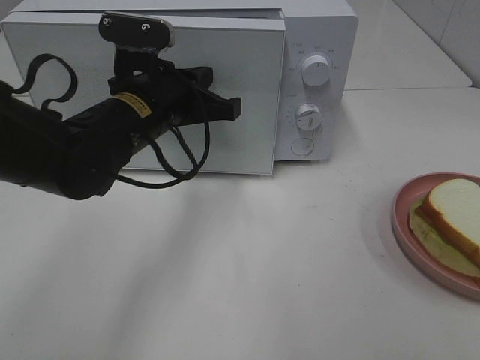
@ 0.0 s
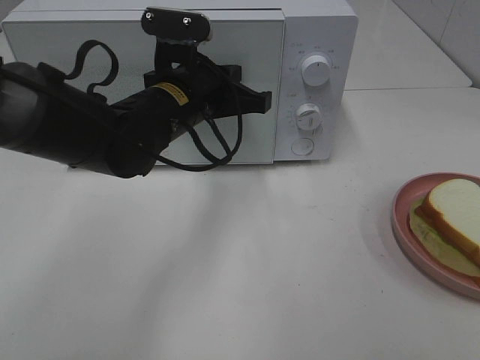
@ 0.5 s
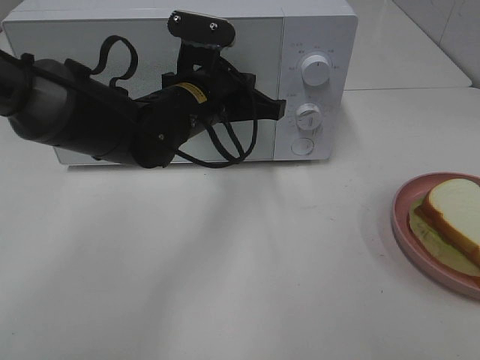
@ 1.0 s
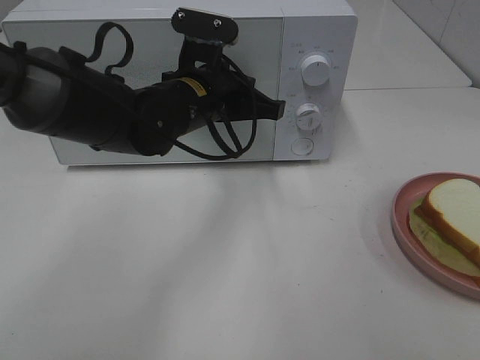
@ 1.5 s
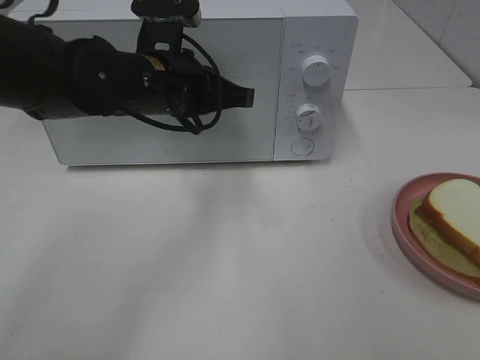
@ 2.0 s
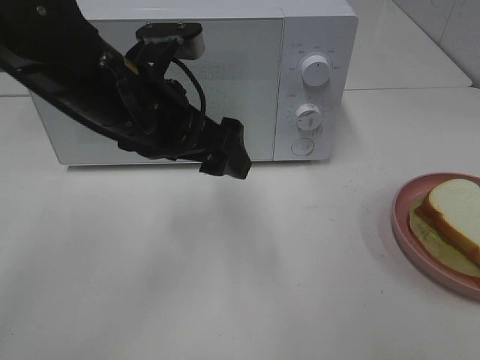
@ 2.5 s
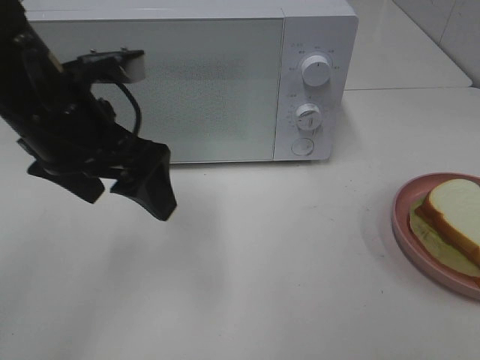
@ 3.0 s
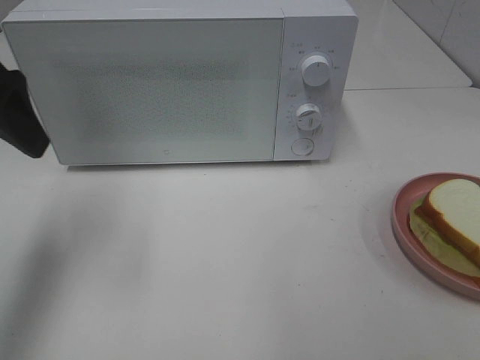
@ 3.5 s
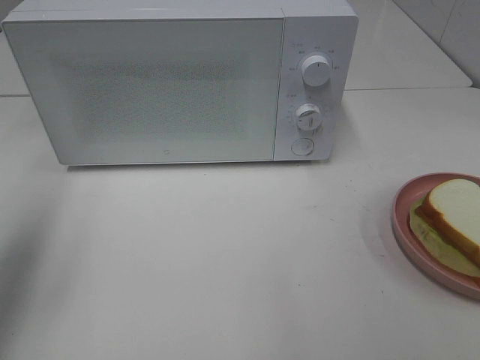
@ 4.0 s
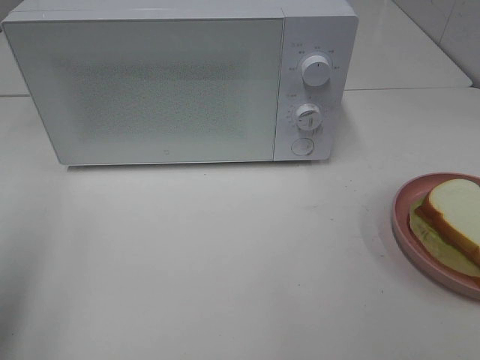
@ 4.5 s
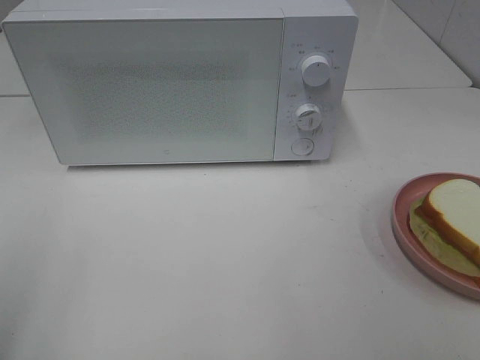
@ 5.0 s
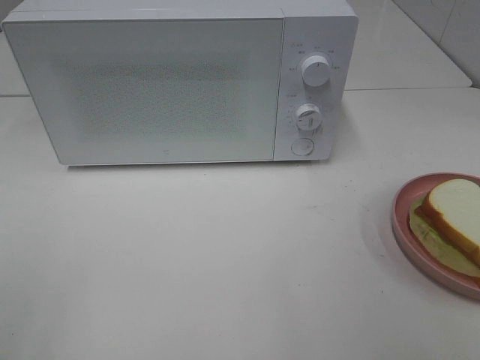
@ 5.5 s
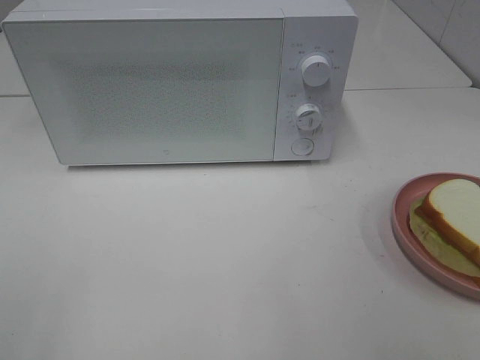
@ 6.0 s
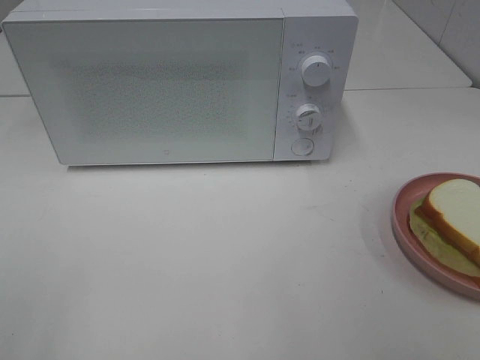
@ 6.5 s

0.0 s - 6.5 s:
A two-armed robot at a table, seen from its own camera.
Task of the whole recording: Heat Sandwich.
2.0 s - 4.5 s: The left gripper heads to the left, backward and upward, covering roughly 35 cm, and opens.
4.5 s - 6.5 s: The left gripper shifts about 15 cm backward.

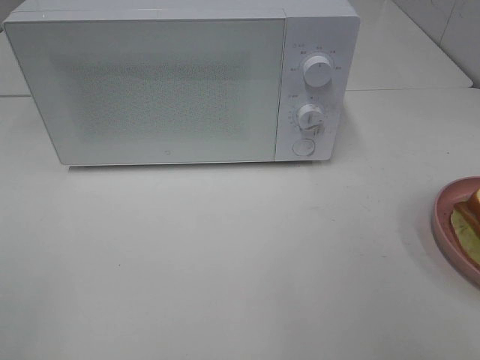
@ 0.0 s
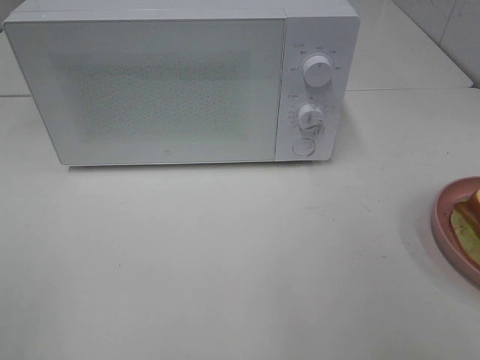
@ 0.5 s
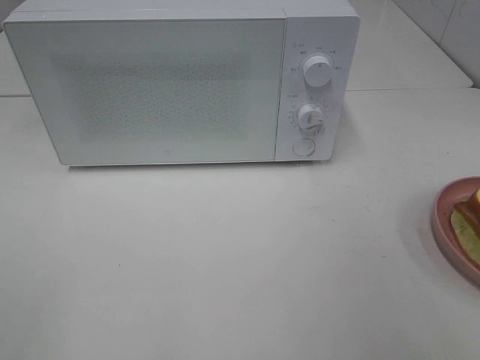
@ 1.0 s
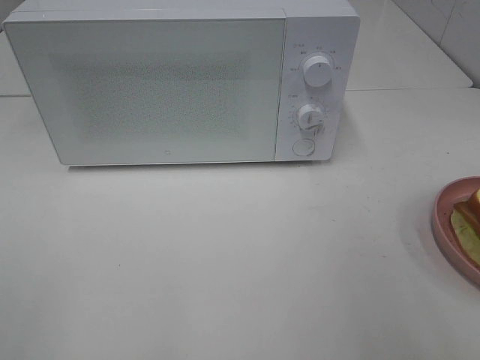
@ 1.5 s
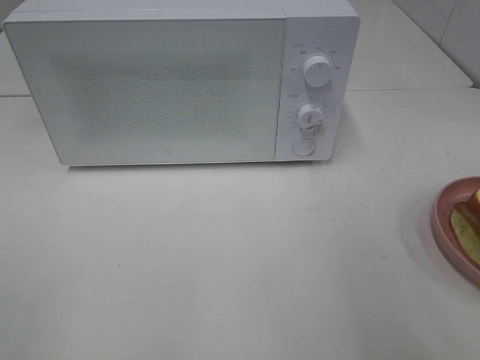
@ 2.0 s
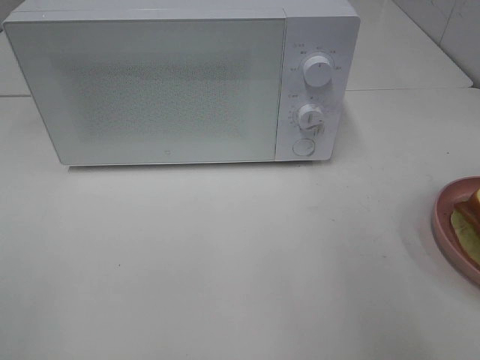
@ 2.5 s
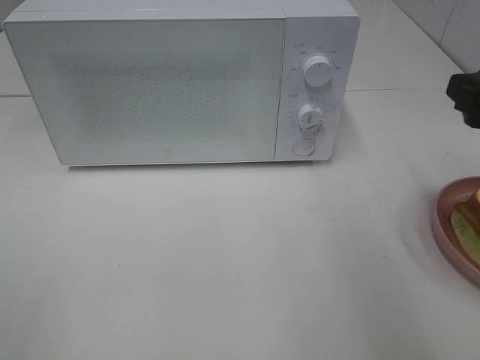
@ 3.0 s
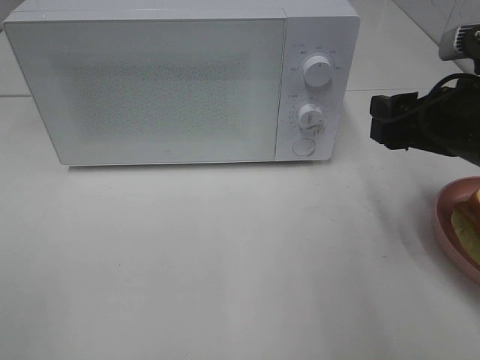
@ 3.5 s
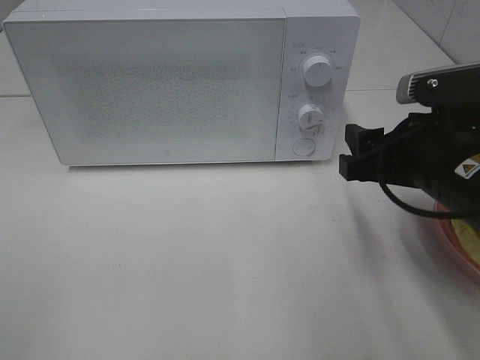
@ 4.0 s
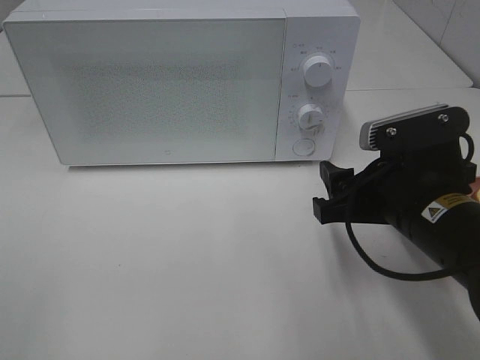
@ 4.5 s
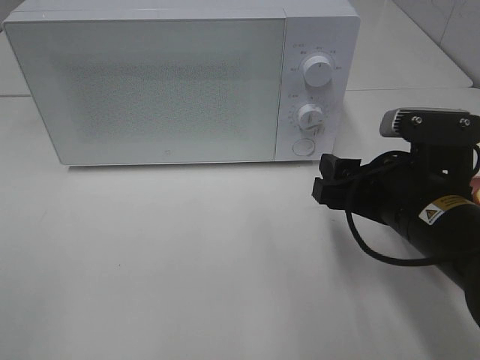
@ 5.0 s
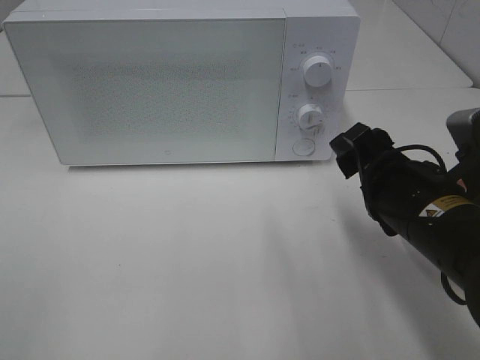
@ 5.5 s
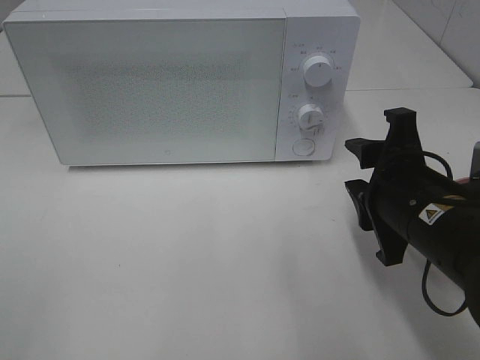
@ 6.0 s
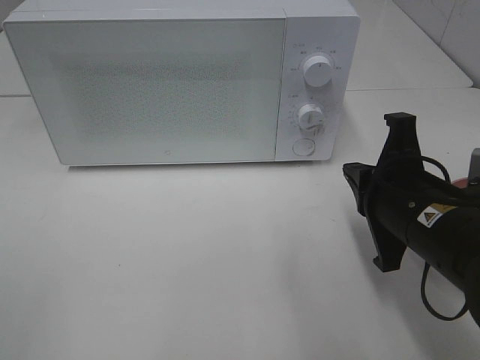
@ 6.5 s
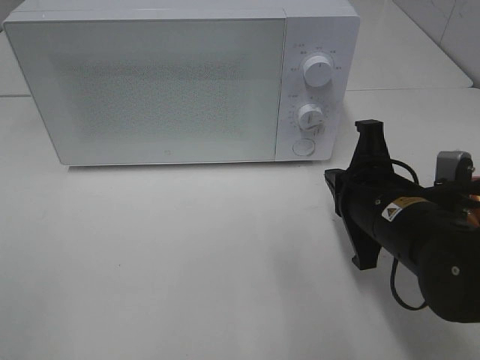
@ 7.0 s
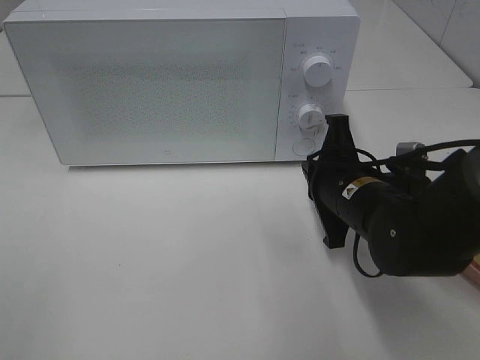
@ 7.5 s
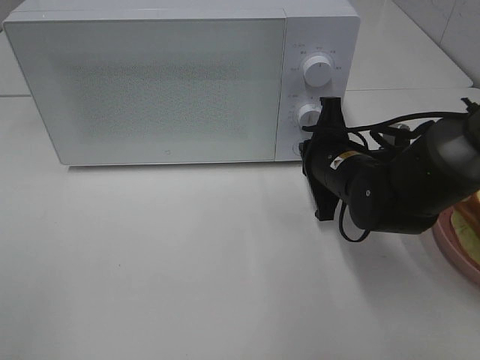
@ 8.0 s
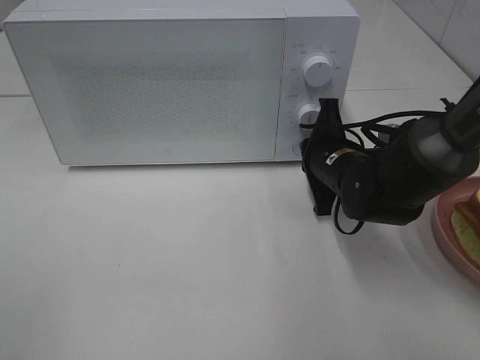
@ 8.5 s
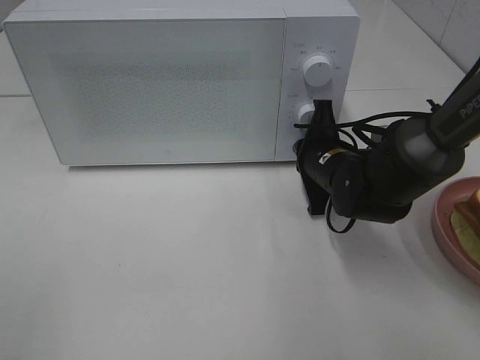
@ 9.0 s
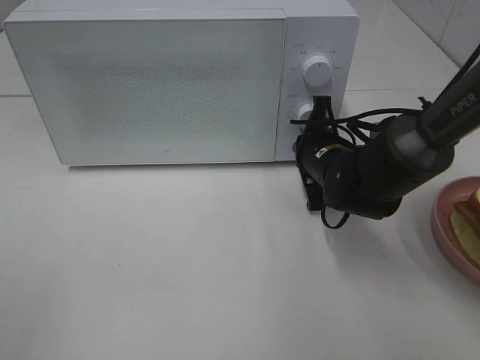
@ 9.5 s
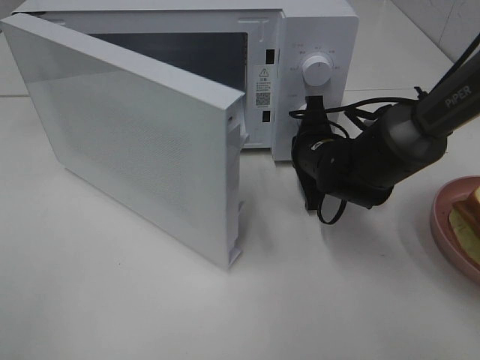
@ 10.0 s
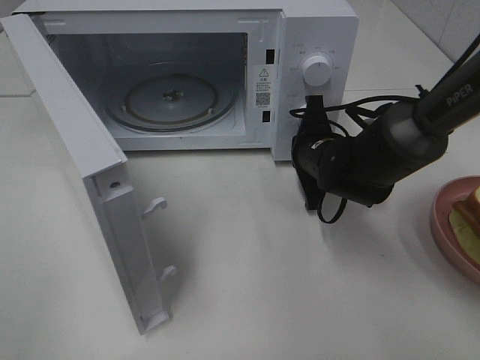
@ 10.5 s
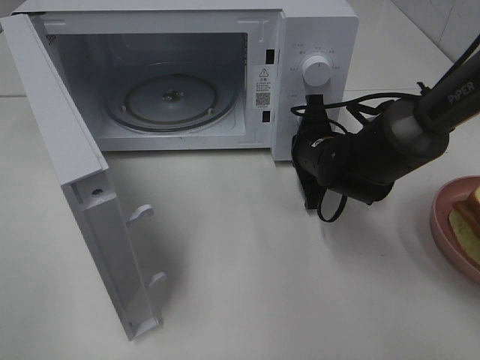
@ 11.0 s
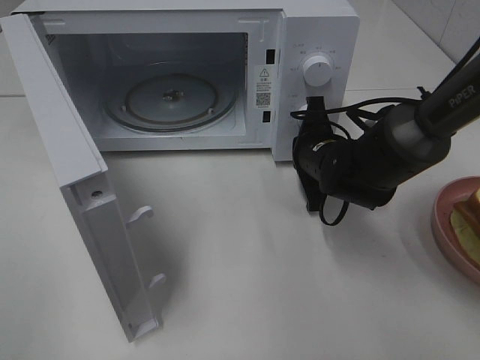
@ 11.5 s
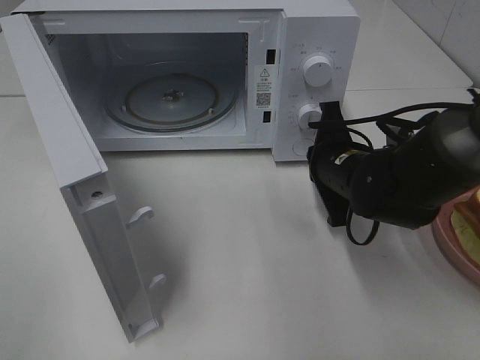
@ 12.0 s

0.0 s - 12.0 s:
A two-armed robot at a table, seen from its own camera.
Task of the whole recording: Heat Sandwich.
2.0 s - 4.0 s: The right gripper heads forward, downward and to the left, covering roughly 15 cm.
6.0 s - 8.0 s: The right gripper moves forward and downward, about 15 cm, and closes its fingers.
8.0 s - 10.0 s: The right gripper moves forward, approximately 5 cm.
10.0 s - 12.0 s: The right gripper heads backward, covering roughly 5 cm.

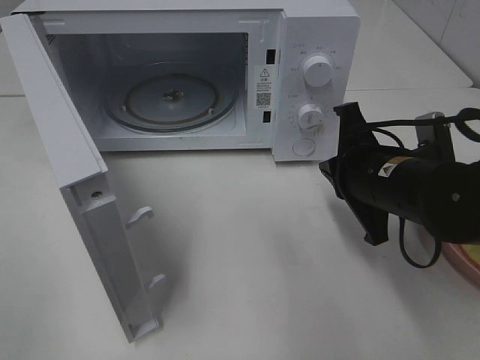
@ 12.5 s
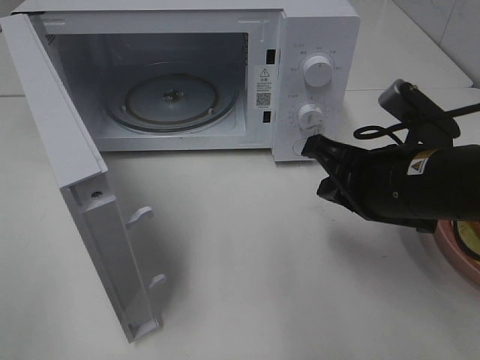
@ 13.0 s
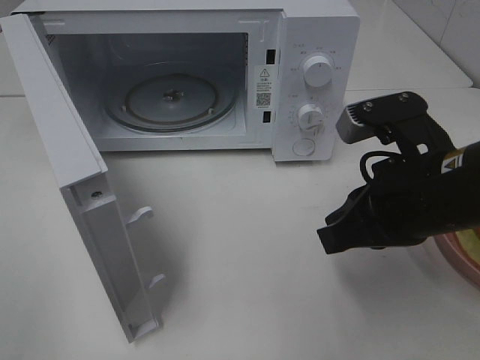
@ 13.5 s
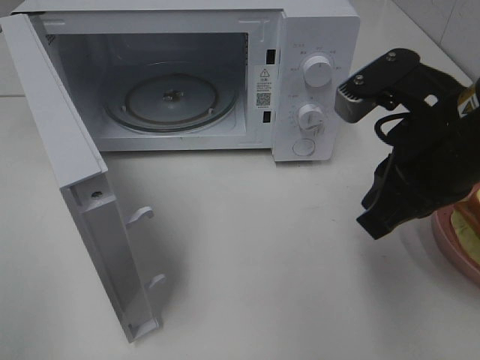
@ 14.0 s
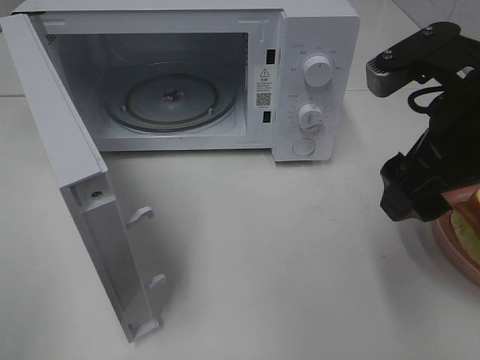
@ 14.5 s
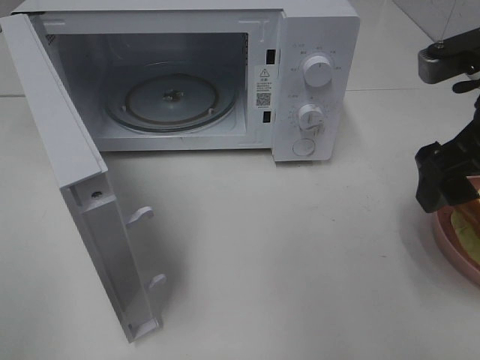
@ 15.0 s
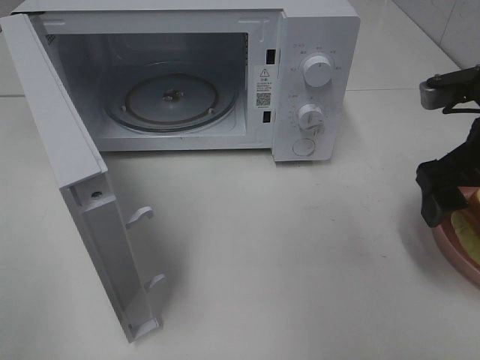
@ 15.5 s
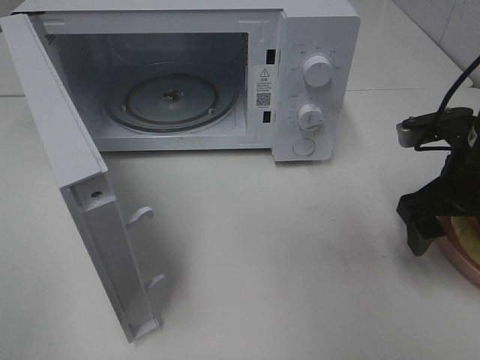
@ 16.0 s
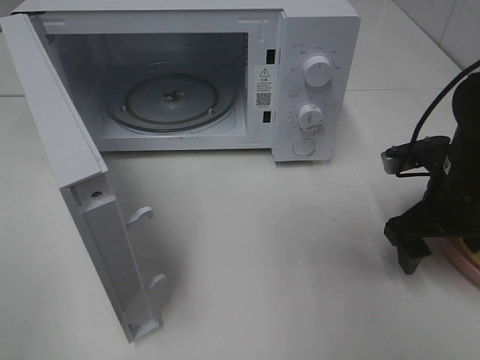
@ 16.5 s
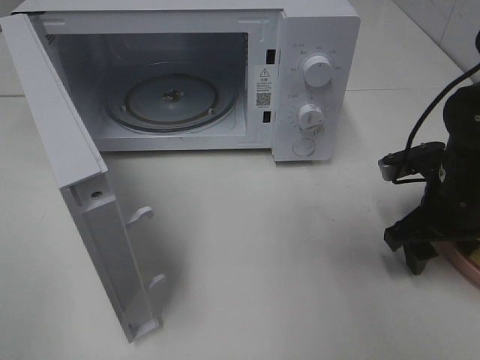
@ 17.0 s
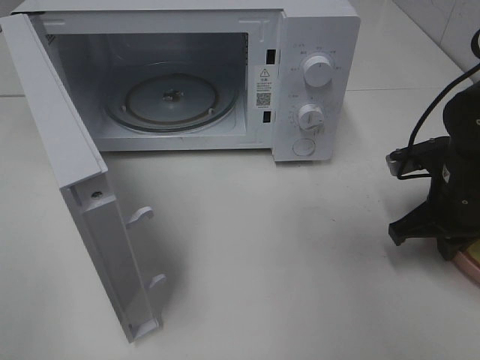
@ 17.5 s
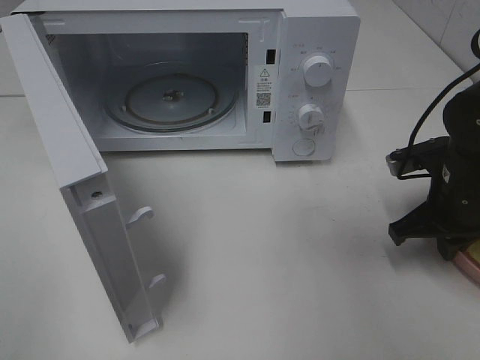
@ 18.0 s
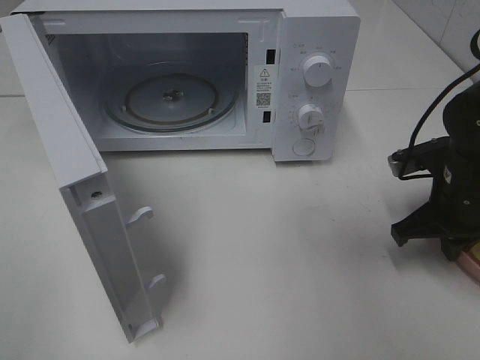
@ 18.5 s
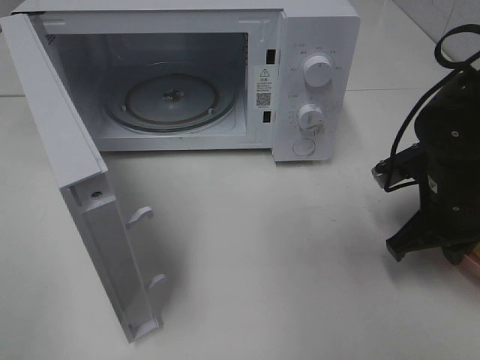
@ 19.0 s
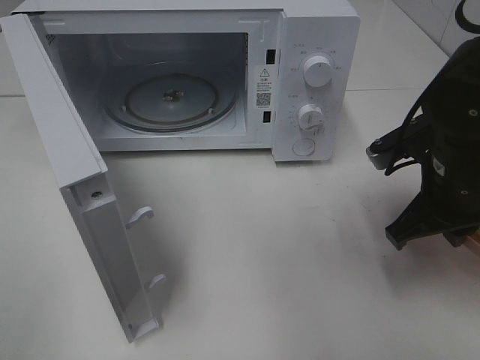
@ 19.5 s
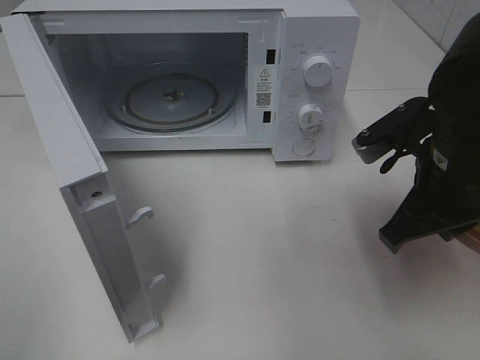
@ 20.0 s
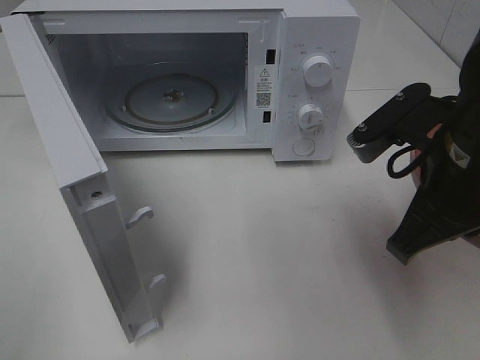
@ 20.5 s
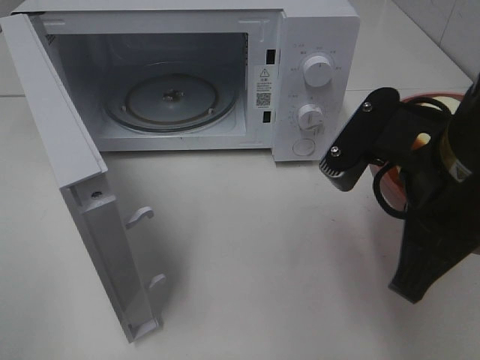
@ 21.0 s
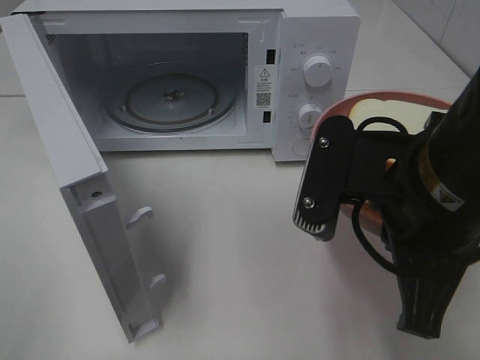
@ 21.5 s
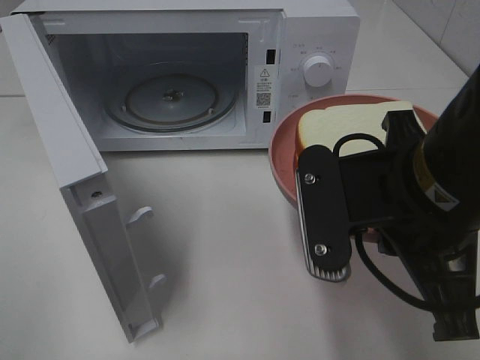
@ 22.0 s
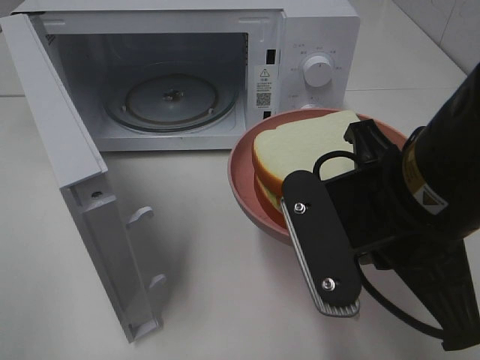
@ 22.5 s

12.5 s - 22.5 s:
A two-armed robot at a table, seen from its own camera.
Task of the whole recording: Heat Sandwich.
Step, 12.5 s - 17.5 s: Right hand: grab the plate with the sandwich.
12.5 s - 14.5 s: The right gripper moves upward, some 10 cm, and opens its fingers.
14.5 s - 16.5 s: The right gripper goes some 15 cm downward, forward and to the right.
16.5 s - 18.5 s: The right gripper closes up.
18.5 s - 20.5 s: The right gripper travels upward, backward and to the left by some 15 cm.
20.5 s - 22.5 s: The right gripper heads to the left and backward, covering some 10 cm.
